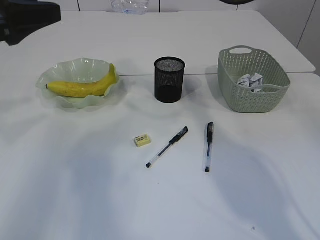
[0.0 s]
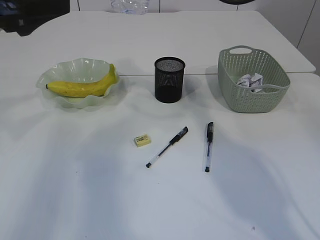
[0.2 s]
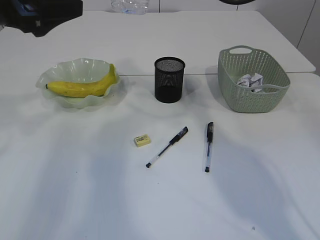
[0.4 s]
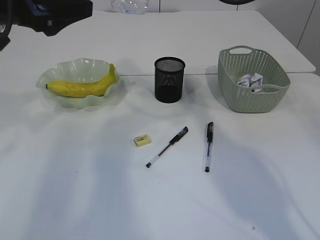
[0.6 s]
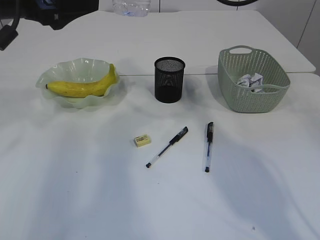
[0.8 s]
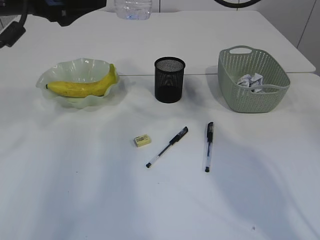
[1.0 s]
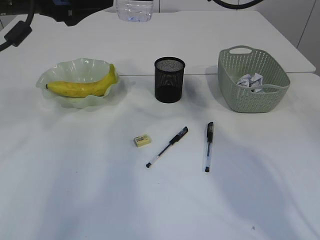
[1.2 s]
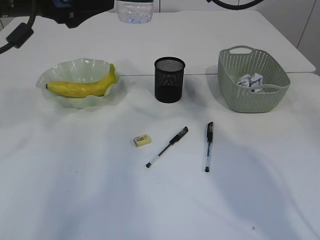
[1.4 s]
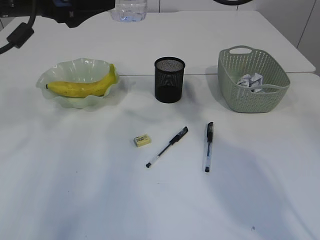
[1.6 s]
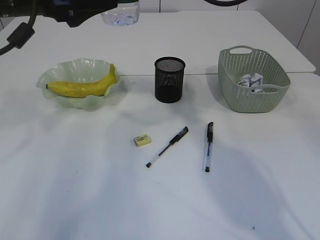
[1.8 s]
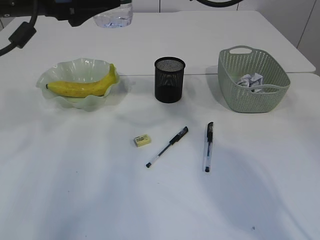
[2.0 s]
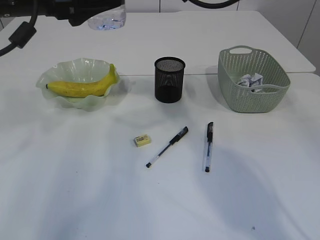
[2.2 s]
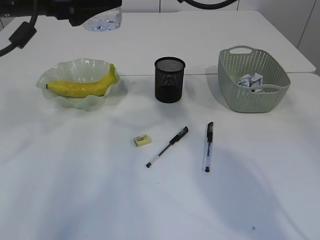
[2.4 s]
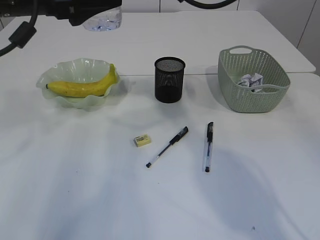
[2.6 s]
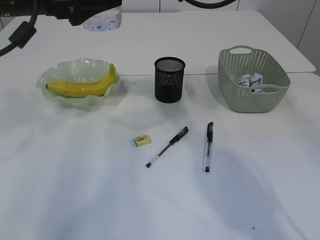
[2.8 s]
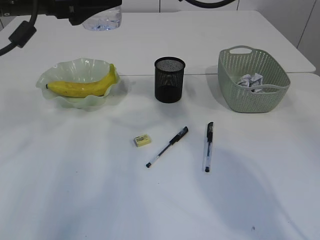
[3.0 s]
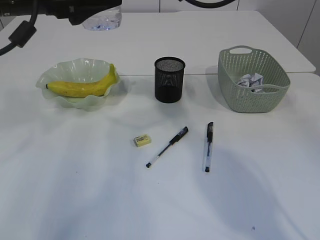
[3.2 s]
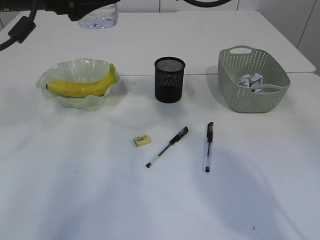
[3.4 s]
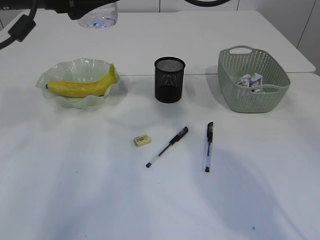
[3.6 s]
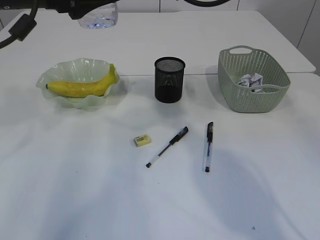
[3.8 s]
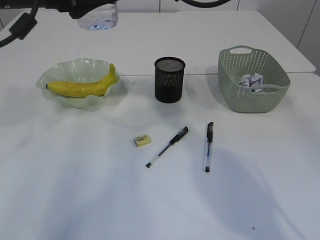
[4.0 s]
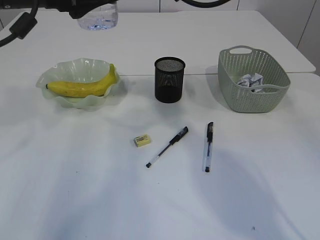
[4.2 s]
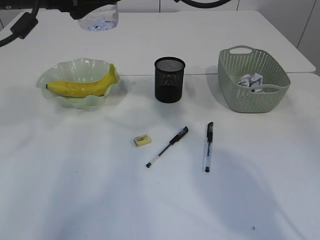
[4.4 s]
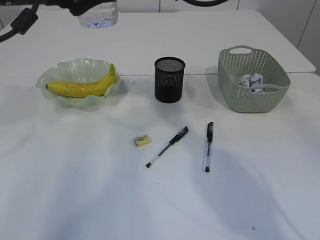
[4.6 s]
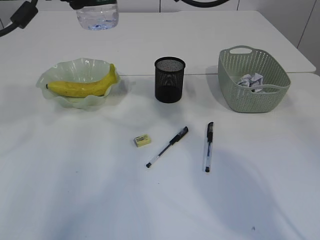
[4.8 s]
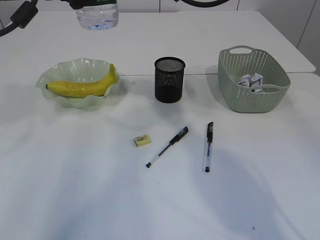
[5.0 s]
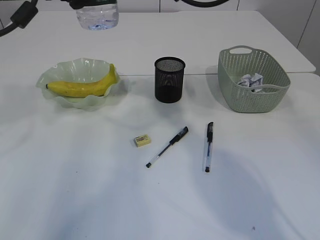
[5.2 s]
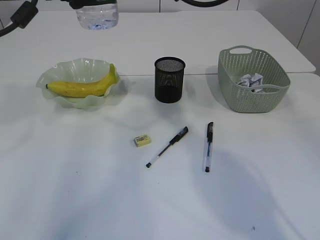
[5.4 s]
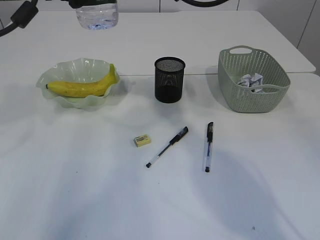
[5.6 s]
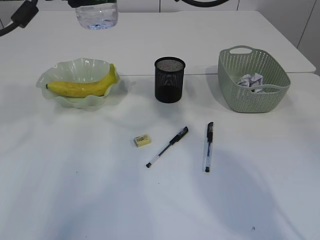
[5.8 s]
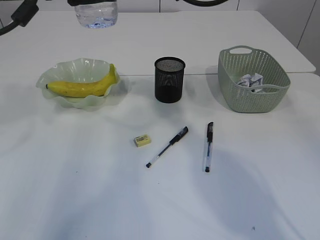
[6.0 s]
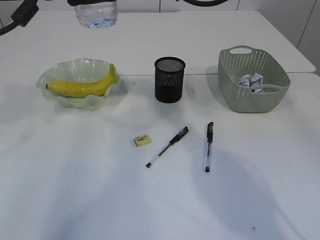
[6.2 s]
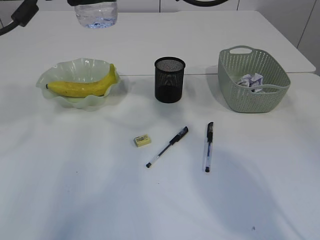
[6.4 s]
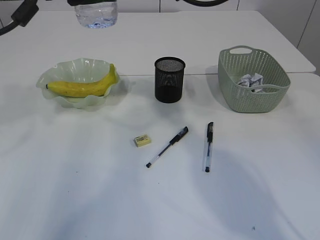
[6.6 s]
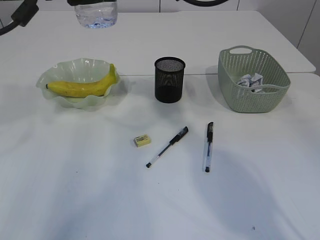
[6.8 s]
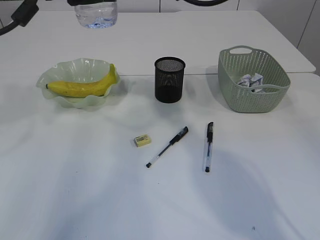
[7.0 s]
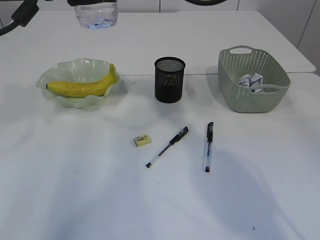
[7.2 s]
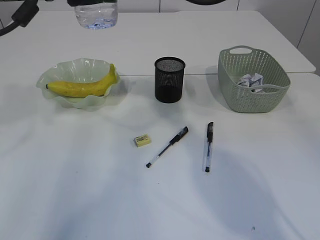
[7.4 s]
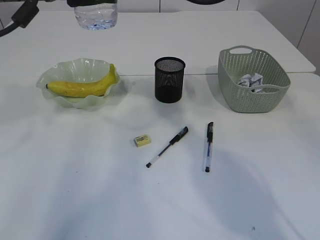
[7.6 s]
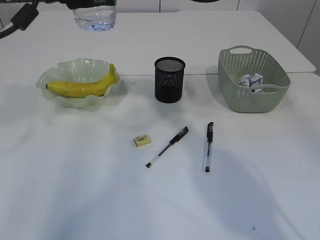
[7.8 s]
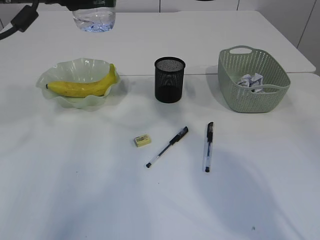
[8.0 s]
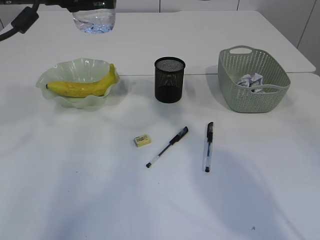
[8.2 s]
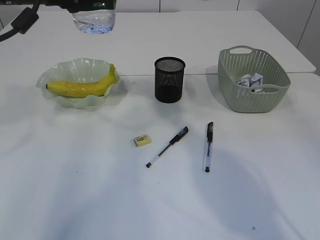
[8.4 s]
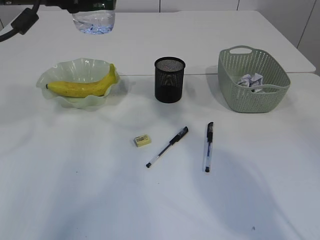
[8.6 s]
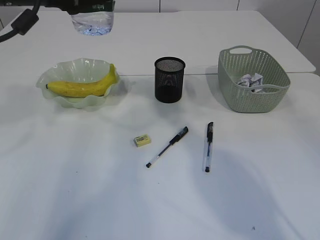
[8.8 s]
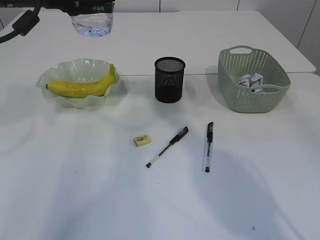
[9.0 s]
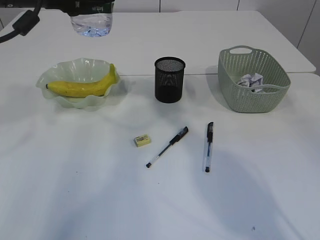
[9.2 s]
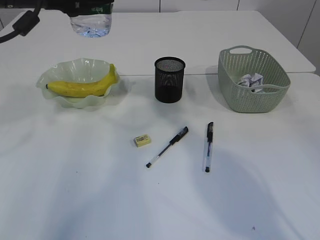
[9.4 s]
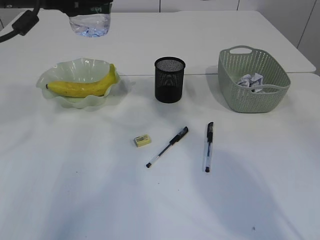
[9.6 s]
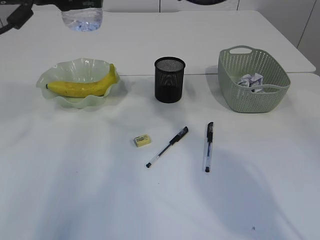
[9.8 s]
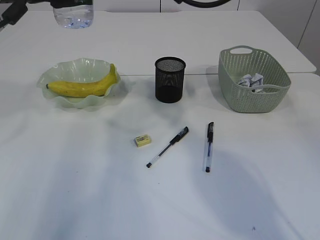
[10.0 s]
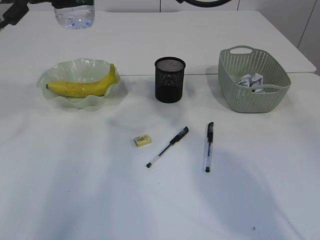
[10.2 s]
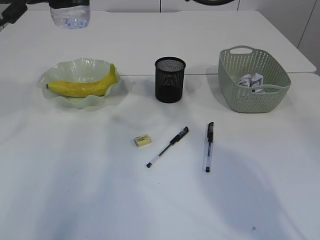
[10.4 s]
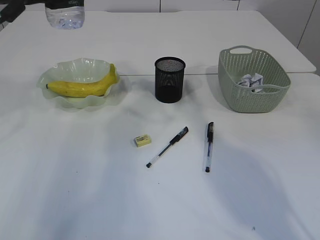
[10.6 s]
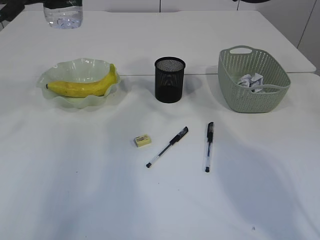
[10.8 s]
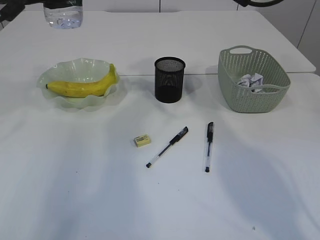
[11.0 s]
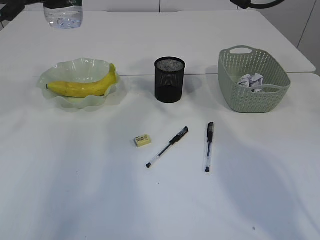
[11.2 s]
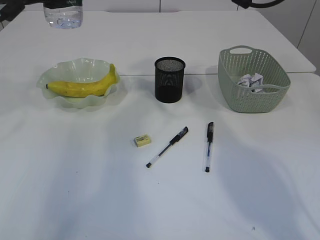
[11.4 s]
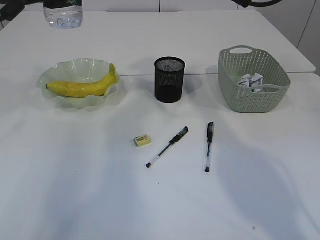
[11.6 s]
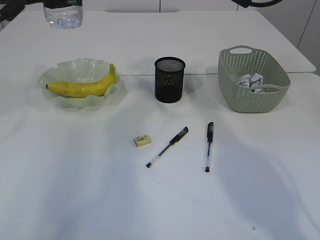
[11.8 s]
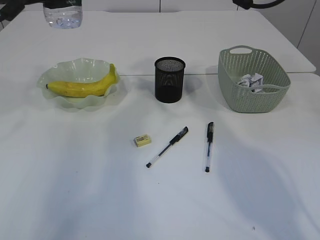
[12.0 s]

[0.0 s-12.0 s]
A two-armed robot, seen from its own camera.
Step, 0.0 to 10.6 s: transfer the bottle to the left arm.
0.0 to 1.6 s: The left gripper heads to the right and forward, covering roughly 10 cm.
1.6 to 3.0 s: The grippers move only a little.
3.0 to 4.4 s: Both grippers stay put.
4.4 to 7.6 s: Both grippers stay put.
7.6 to 10.4 s: The grippers move only a little.
10.4 to 12.0 s: The right gripper goes some 10 cm to the right, and closes.

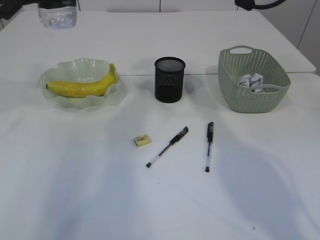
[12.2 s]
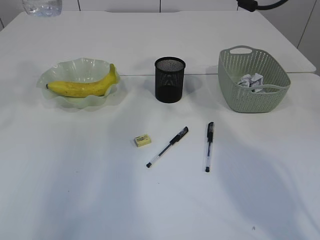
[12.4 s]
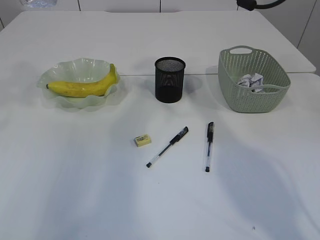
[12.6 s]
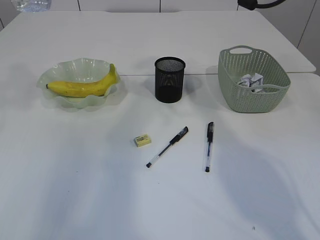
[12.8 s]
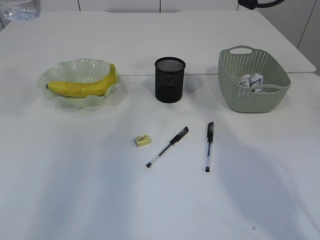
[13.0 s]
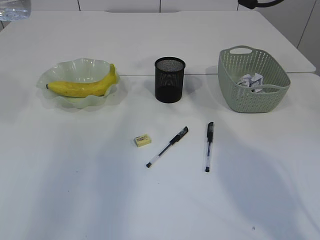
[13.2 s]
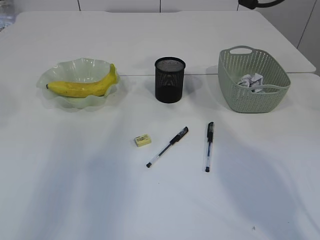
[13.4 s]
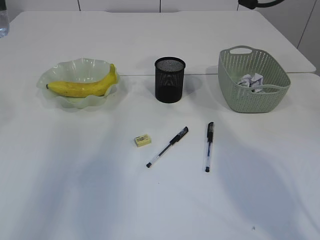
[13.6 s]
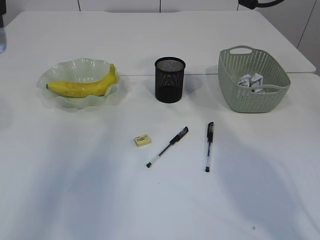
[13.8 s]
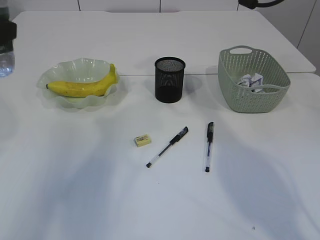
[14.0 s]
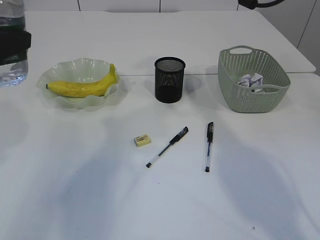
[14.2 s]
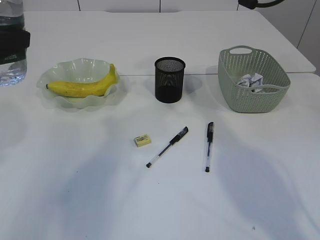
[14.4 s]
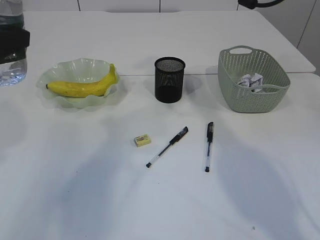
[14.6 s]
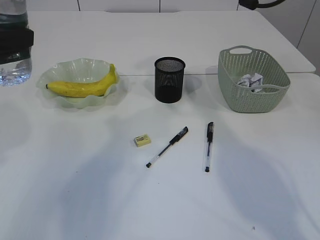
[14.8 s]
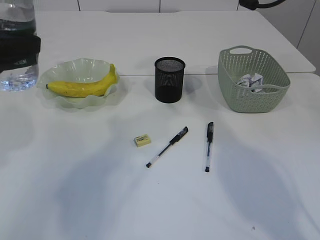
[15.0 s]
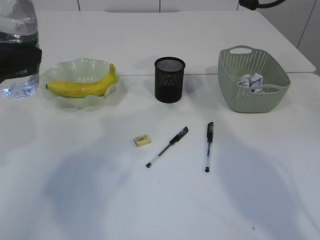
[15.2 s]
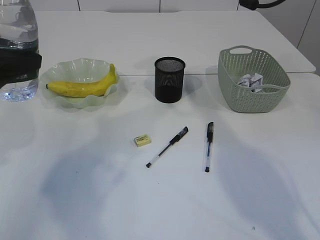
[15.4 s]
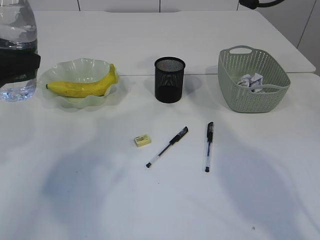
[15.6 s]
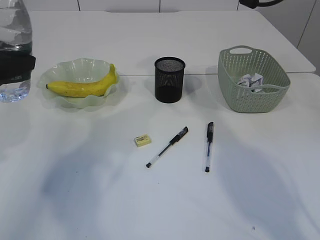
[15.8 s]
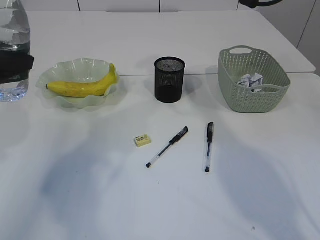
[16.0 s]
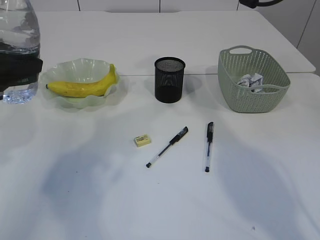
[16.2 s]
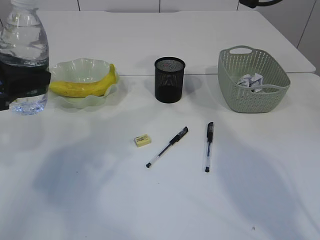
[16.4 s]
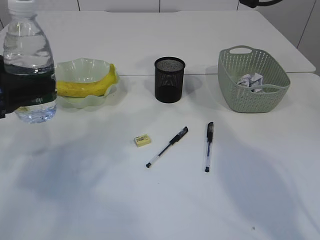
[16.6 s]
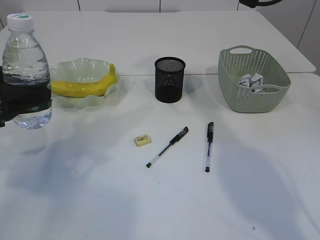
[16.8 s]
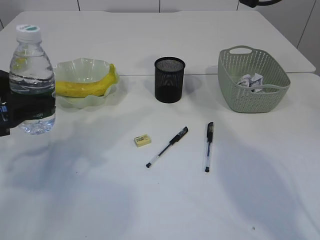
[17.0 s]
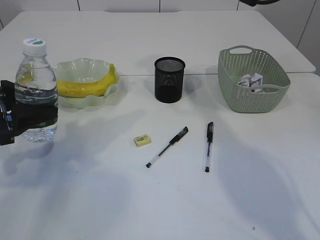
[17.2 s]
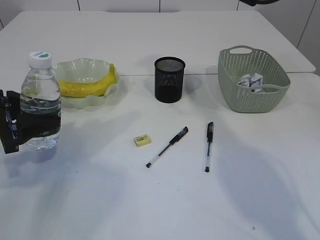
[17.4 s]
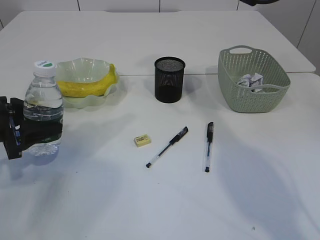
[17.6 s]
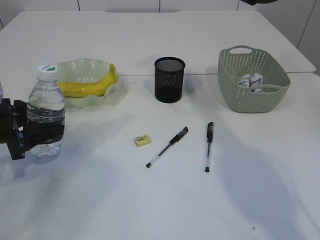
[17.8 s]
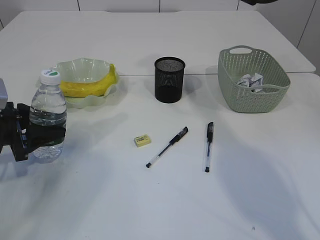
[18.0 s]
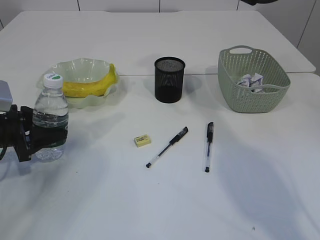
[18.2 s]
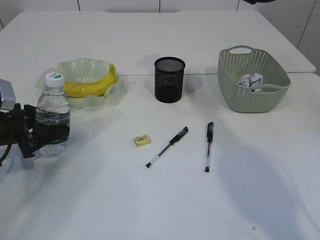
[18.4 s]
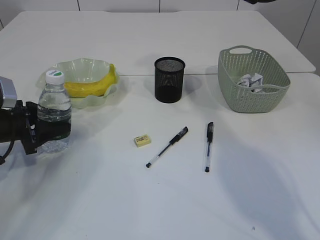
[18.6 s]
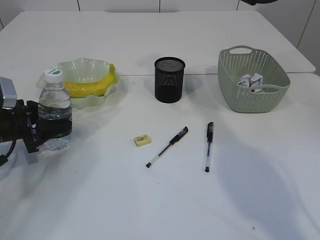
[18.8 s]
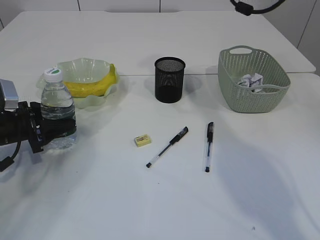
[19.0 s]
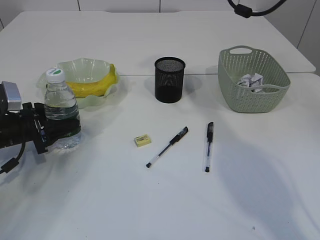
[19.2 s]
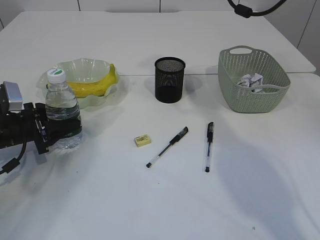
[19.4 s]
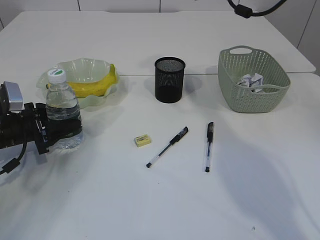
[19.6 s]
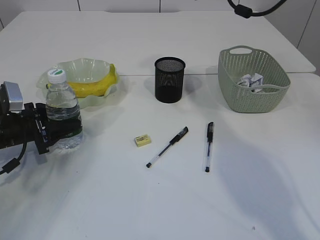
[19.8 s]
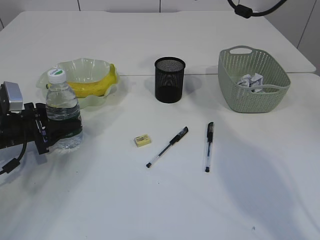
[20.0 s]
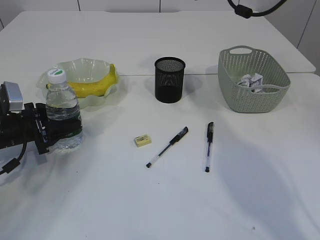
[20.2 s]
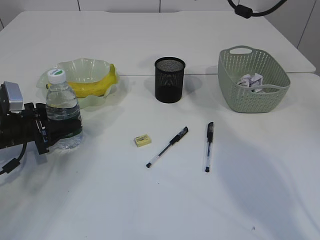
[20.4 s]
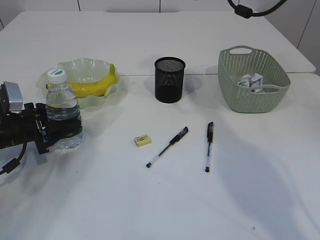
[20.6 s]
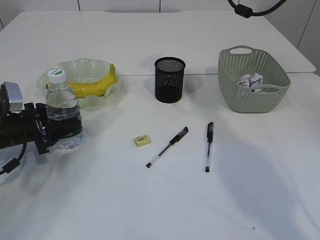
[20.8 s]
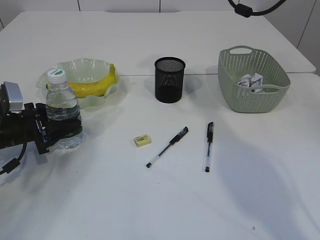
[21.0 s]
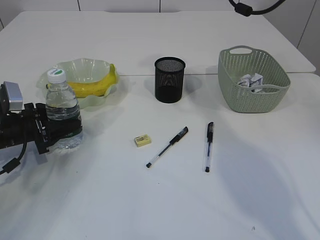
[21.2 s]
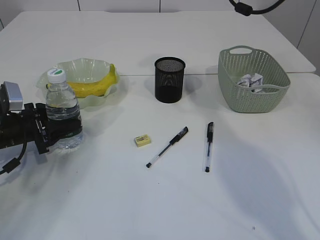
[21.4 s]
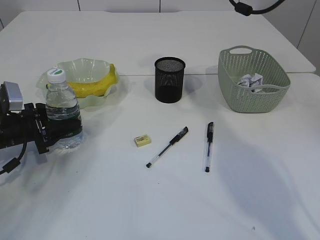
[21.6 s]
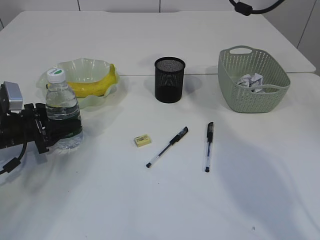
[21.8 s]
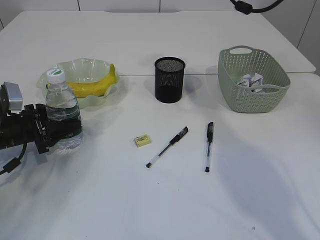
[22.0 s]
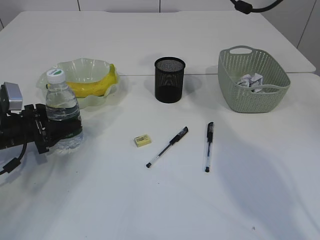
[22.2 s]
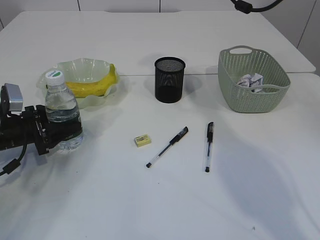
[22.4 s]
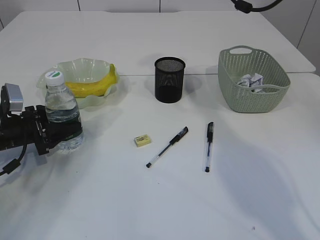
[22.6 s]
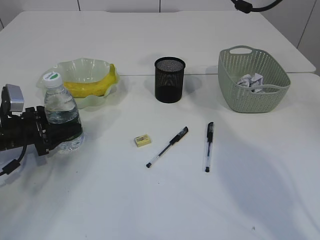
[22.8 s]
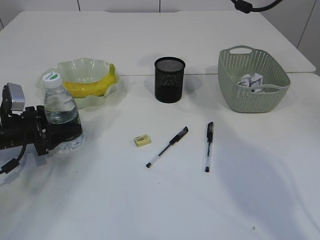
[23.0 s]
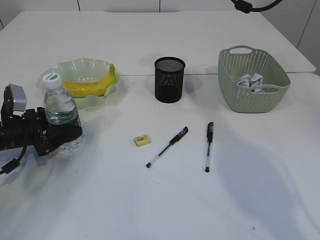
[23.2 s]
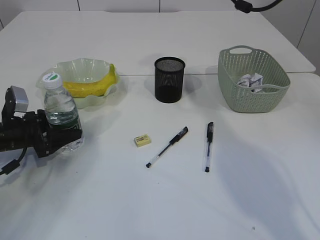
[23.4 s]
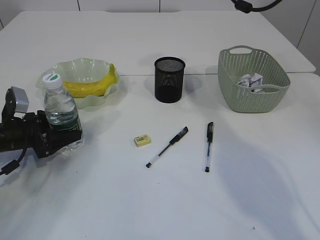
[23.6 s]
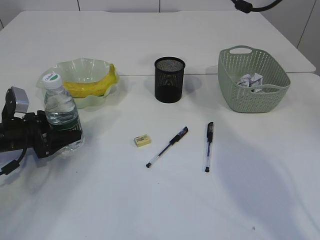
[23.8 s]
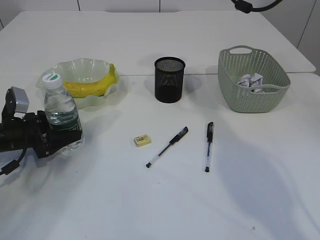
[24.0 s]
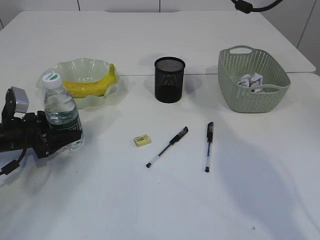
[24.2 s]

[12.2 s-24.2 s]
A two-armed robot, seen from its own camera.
12.2 to 13.8 s: The left gripper is displaced backward by approximately 10 cm.
15.2 to 16.6 s: The left gripper is displaced downward by roughly 5 cm.
16.6 to 18.2 s: The left gripper shifts approximately 15 cm downward.
18.2 to 19.8 s: The left gripper shifts by some 5 cm.
19.8 to 21.2 s: Both grippers stay put.
21.2 to 22.6 s: Both grippers stay about where they are.
22.6 to 24.2 s: The grippers stay close to where they were, moving slightly.
